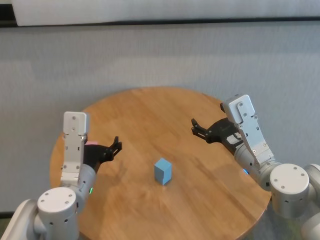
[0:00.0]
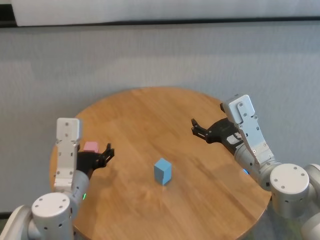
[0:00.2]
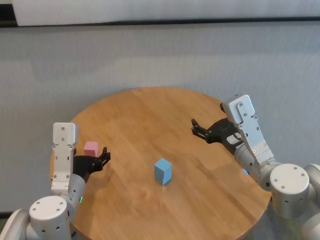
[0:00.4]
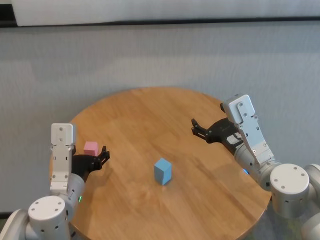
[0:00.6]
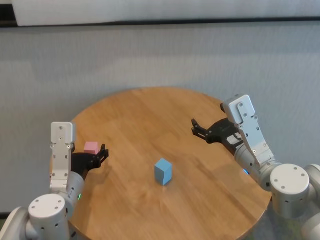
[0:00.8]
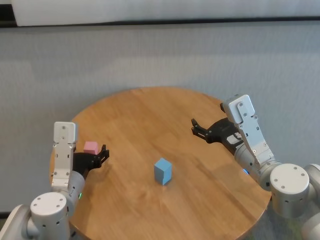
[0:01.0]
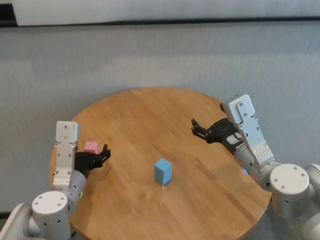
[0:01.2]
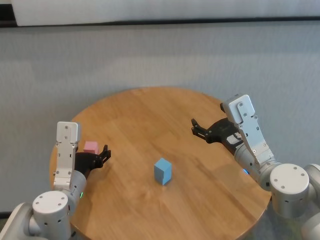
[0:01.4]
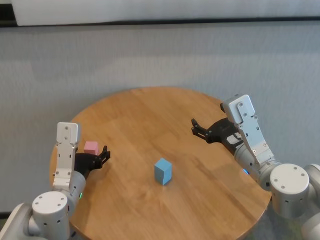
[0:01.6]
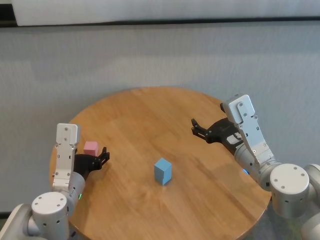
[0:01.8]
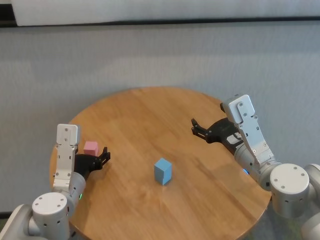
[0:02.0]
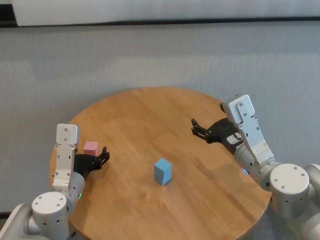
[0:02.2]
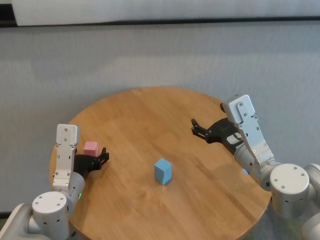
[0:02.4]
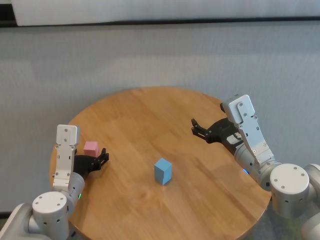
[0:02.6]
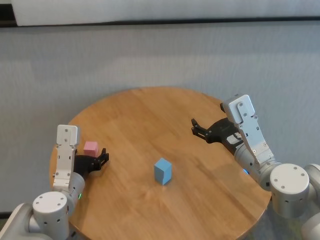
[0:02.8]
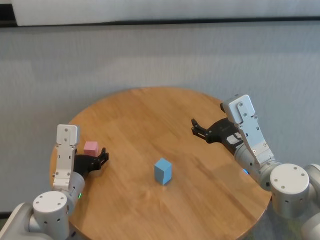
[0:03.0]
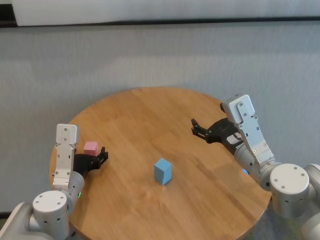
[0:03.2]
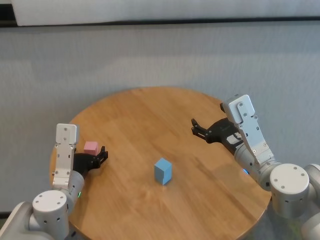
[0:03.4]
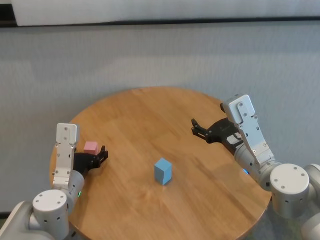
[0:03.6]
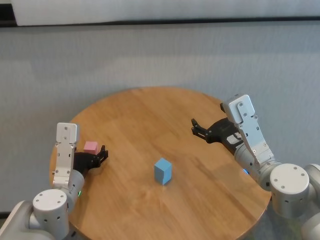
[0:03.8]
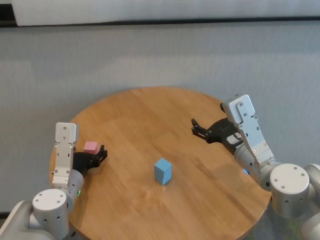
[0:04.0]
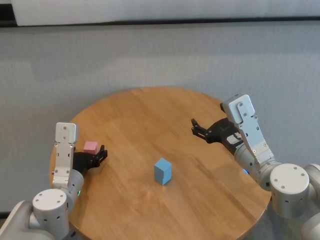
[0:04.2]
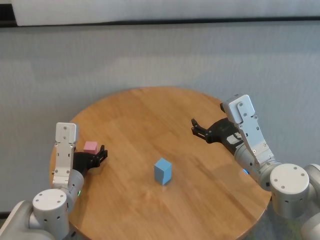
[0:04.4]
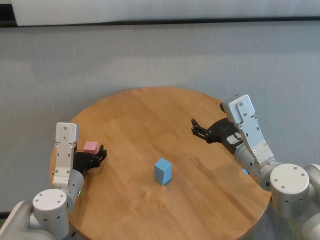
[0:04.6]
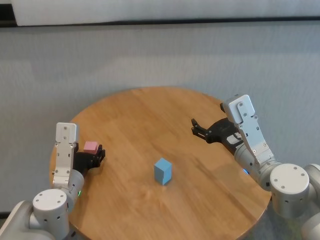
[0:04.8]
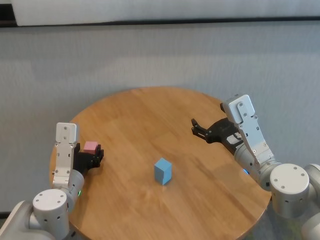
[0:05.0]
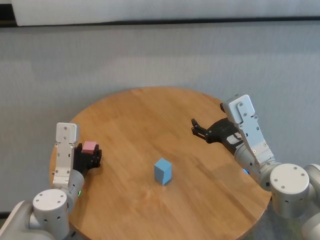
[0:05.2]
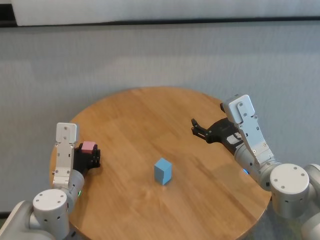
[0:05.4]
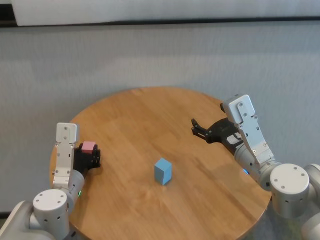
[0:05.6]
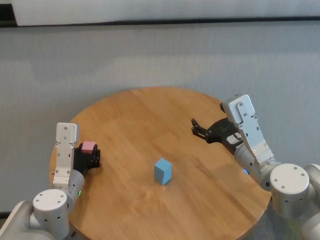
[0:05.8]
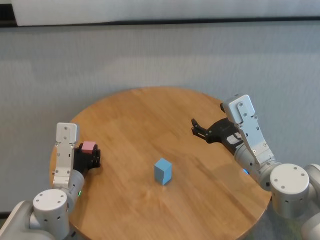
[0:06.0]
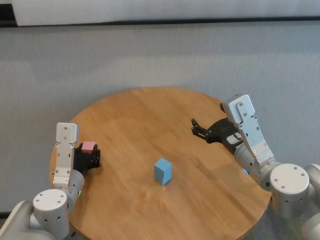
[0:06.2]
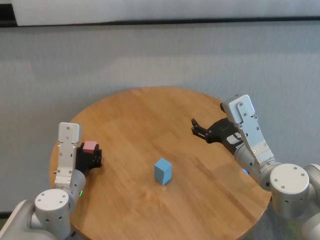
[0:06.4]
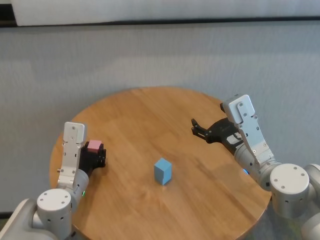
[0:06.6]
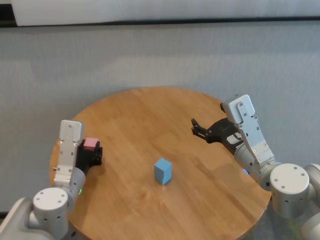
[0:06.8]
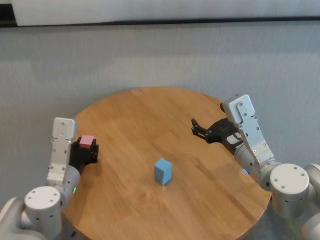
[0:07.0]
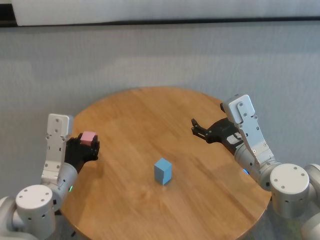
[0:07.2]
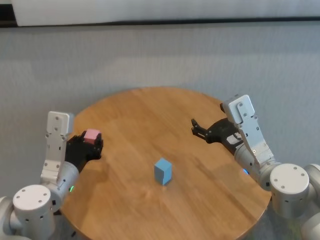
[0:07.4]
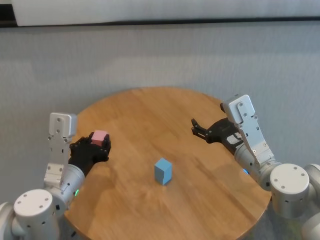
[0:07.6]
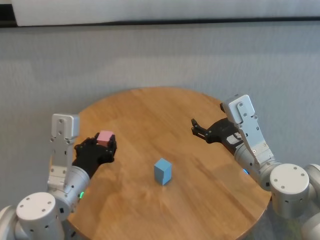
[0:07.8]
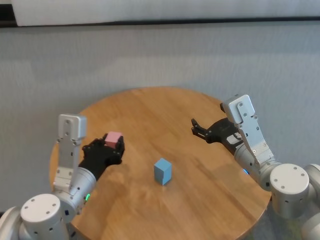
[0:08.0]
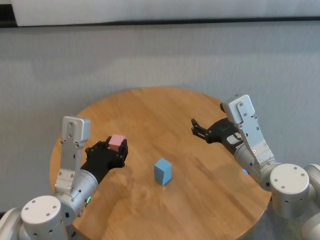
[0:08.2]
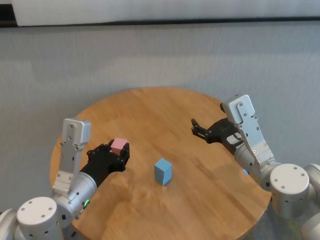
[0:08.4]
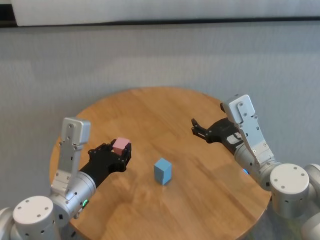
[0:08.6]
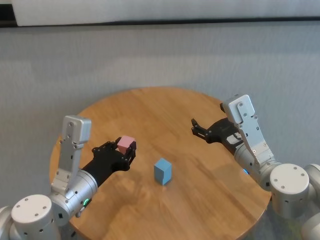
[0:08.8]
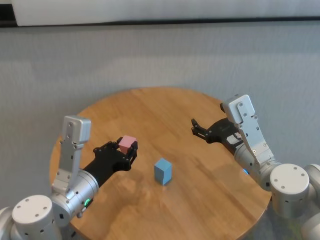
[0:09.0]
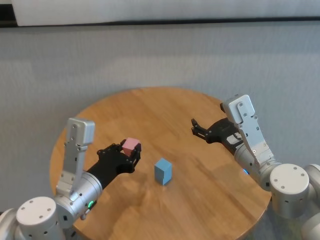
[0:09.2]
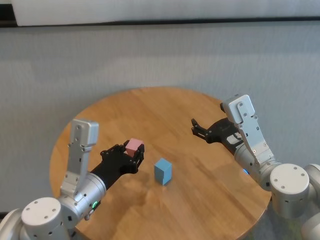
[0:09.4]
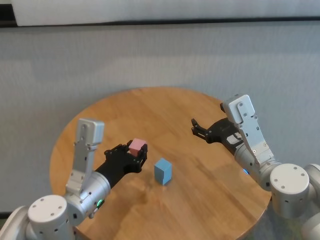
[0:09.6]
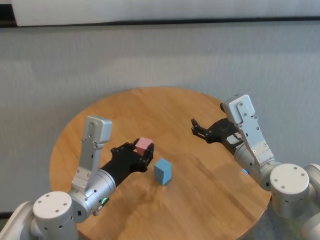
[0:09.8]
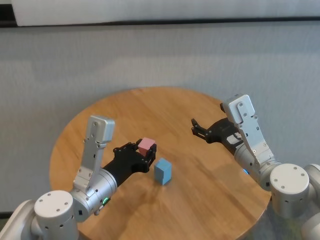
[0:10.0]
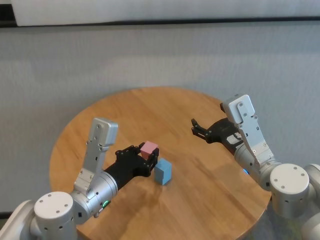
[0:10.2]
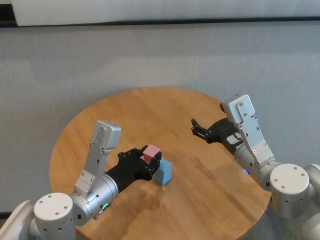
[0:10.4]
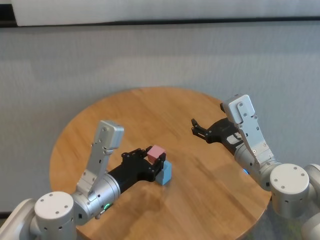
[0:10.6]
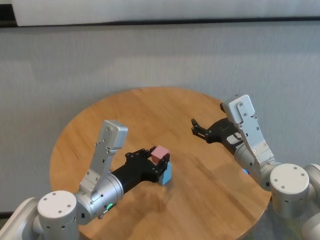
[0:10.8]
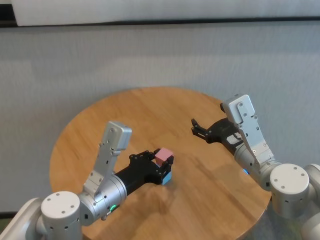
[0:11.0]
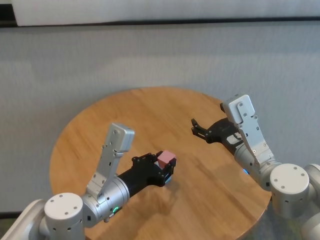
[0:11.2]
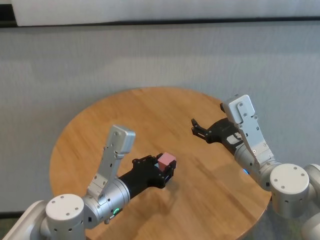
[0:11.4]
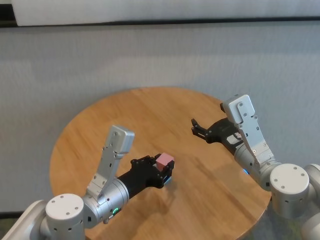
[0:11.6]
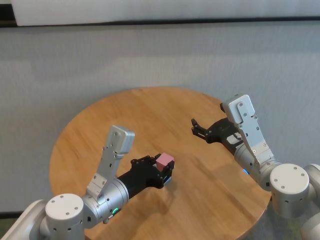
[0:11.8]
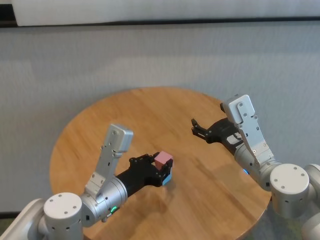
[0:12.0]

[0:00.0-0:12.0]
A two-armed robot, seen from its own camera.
Task of the whole recording: stack building blocks on the table.
Step, 0:00.0 to 0:06.2: Grasp the pink building block with left gripper.

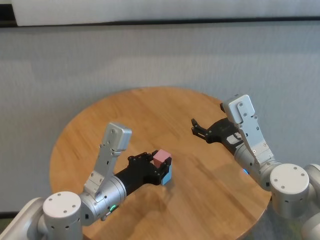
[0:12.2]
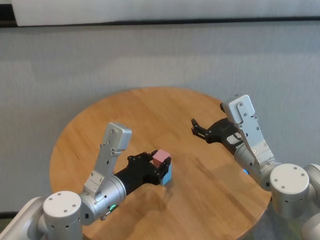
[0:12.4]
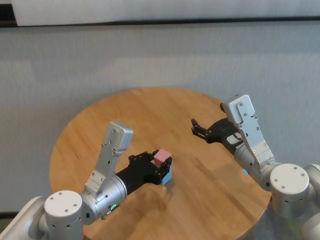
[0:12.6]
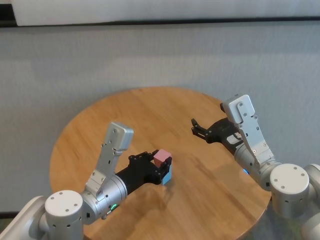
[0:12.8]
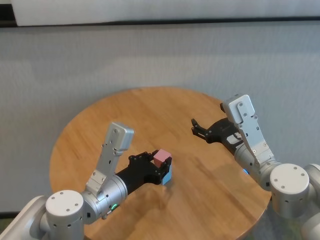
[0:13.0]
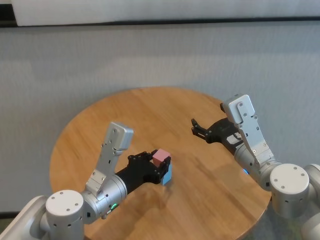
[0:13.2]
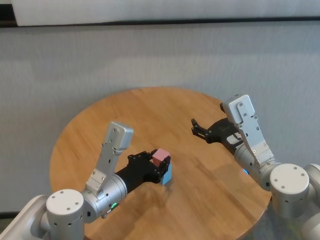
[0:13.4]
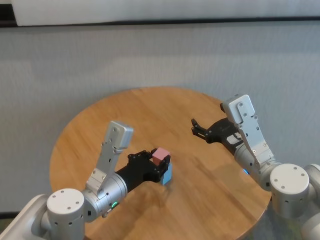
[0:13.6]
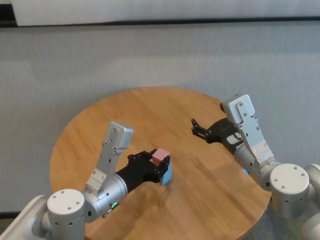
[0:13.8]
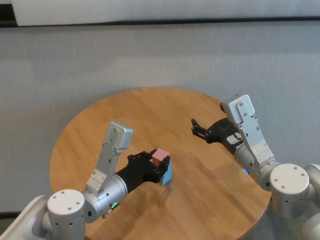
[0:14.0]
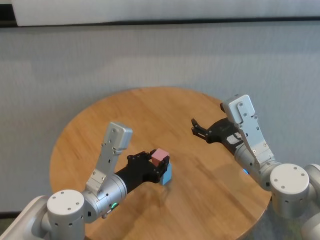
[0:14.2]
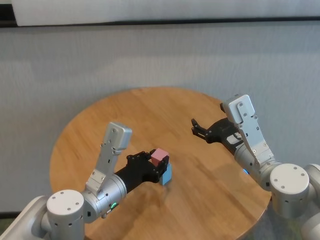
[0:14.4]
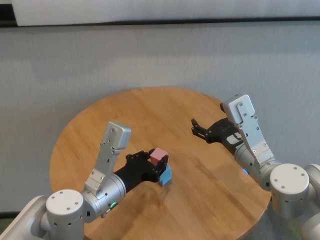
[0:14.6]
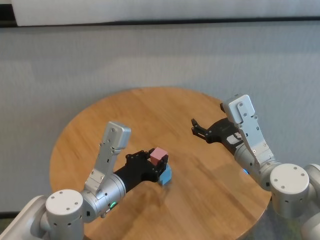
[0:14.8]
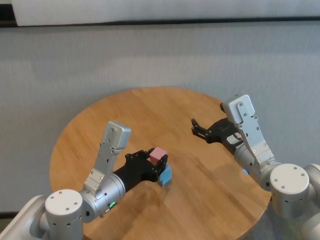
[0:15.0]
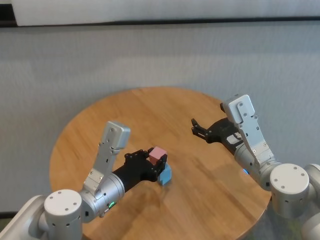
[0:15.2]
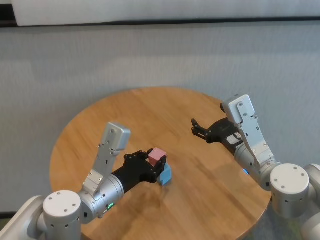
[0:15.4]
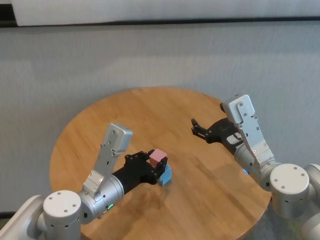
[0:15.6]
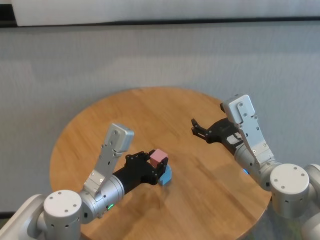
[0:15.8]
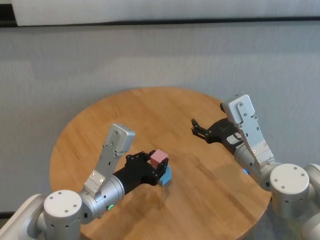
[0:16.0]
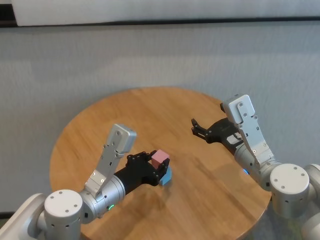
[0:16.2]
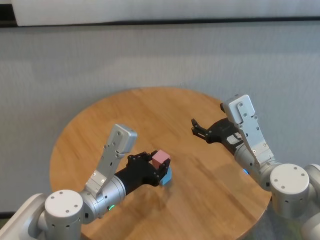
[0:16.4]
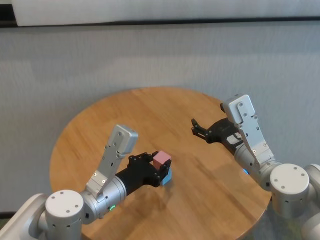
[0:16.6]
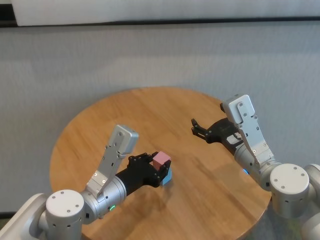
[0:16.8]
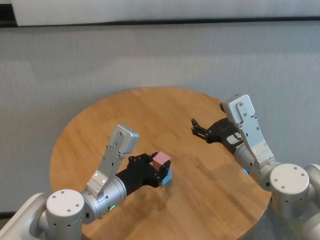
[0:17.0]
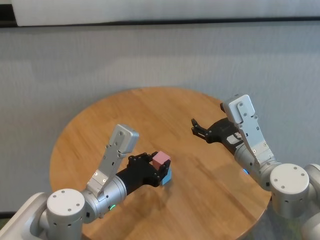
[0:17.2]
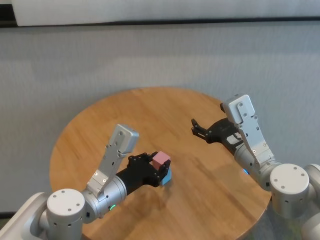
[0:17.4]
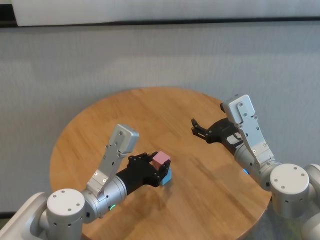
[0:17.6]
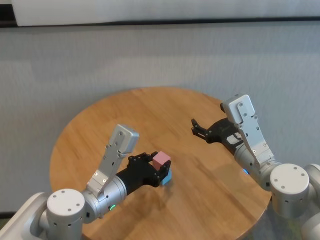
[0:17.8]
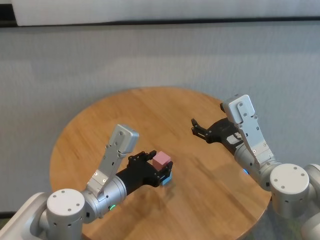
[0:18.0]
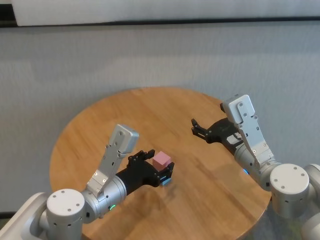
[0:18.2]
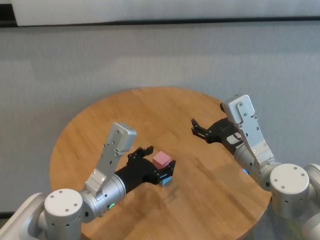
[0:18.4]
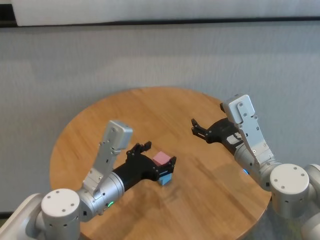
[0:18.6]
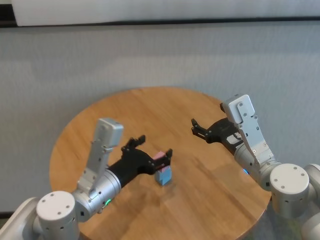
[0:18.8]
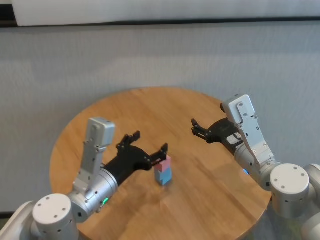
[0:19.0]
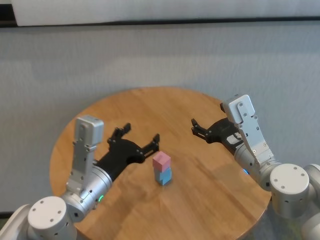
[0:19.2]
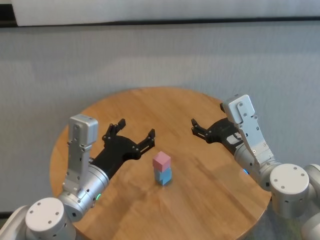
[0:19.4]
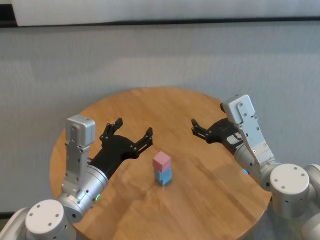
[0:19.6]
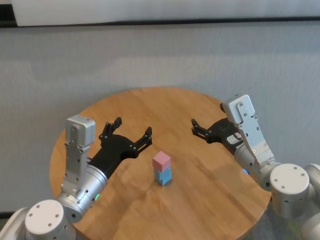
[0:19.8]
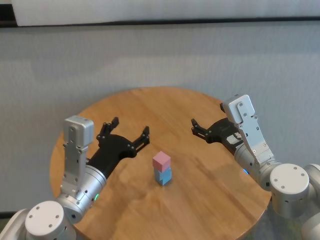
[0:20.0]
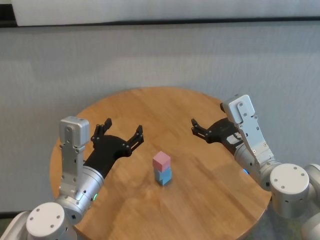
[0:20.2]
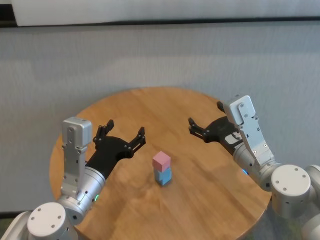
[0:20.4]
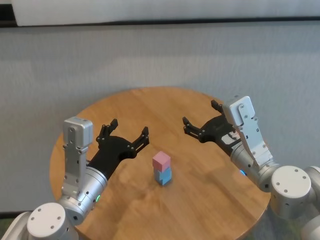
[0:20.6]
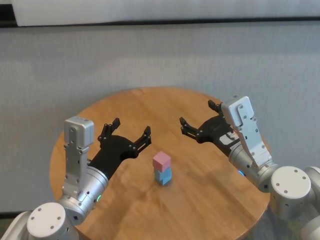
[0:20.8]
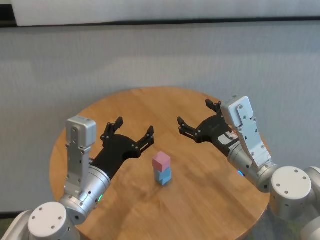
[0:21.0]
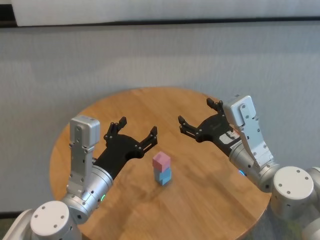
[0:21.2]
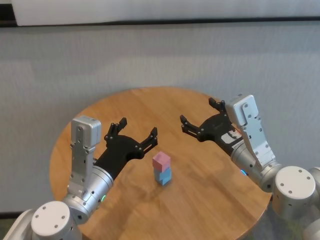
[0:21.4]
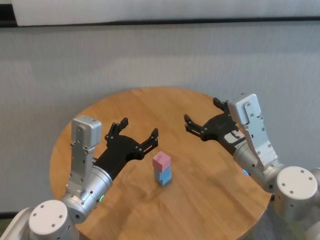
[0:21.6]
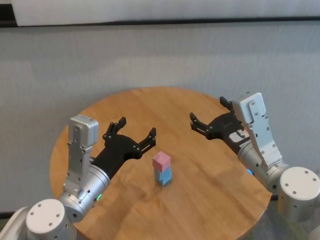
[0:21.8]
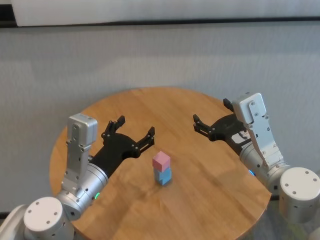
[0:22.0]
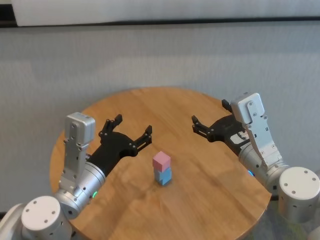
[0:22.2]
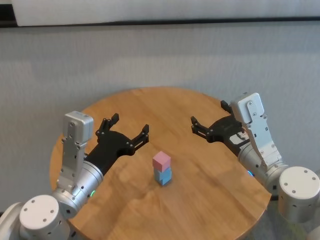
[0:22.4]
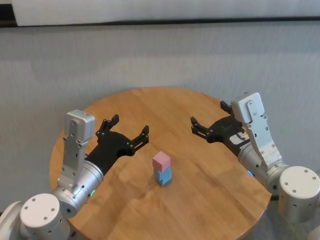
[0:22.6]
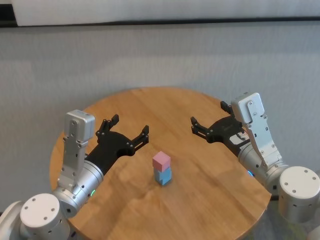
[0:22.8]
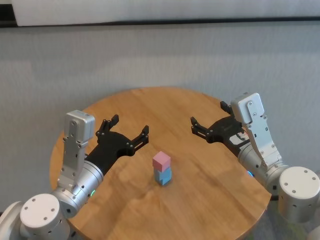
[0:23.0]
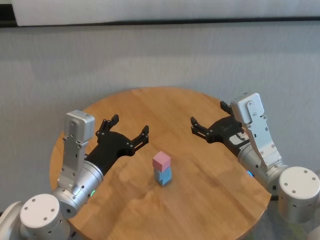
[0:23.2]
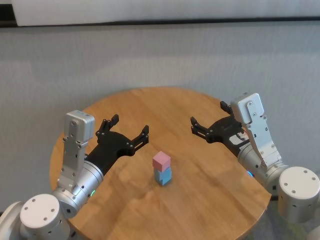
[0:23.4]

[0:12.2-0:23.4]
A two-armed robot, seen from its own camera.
Task of the whole recording: stack building blocks on the table.
Step, 0:12.2 to 0:18.2: Place the pink building block on the blue building blocks with left gripper.
